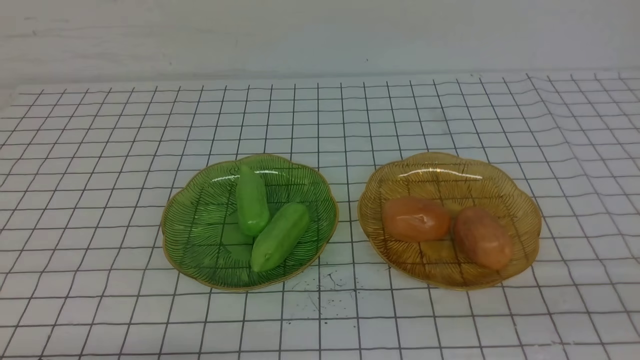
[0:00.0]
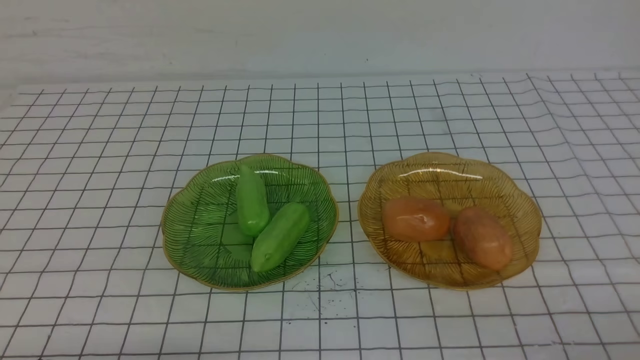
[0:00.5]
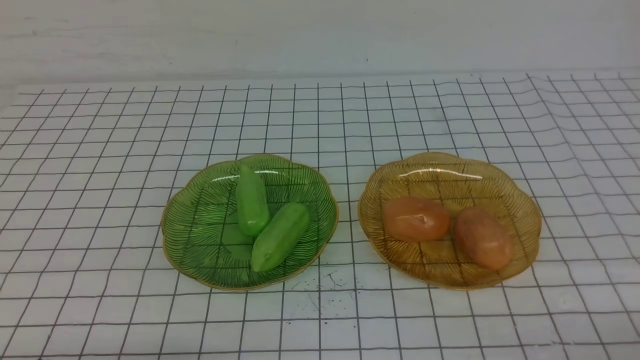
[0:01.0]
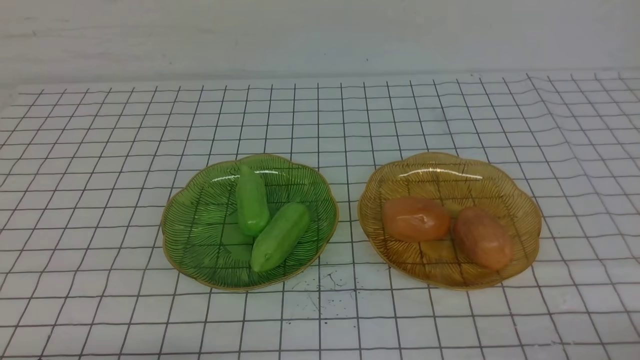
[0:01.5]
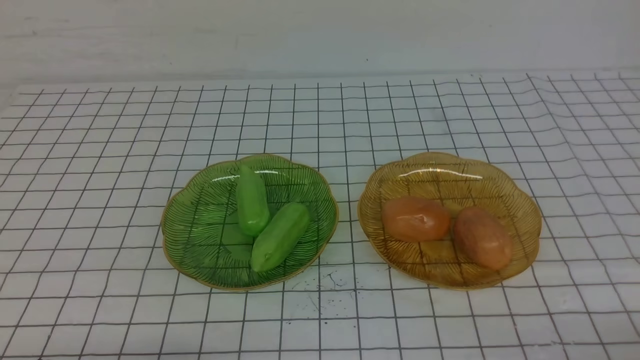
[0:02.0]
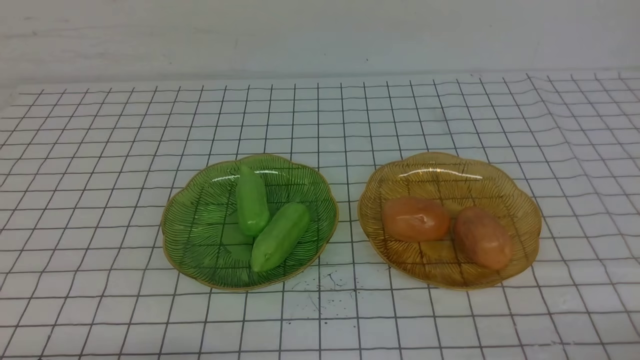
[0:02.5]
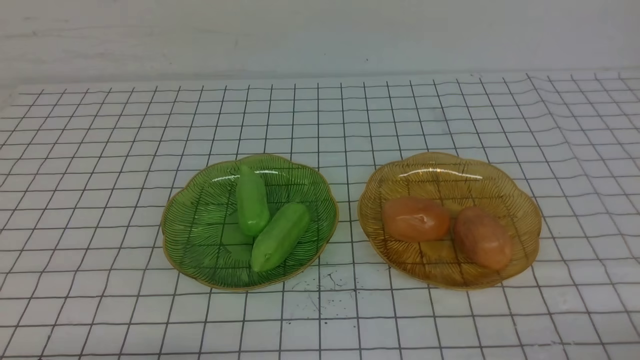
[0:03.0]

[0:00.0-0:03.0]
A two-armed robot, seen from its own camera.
0:01.5 to 0:03.0: The two grippers keep their place.
